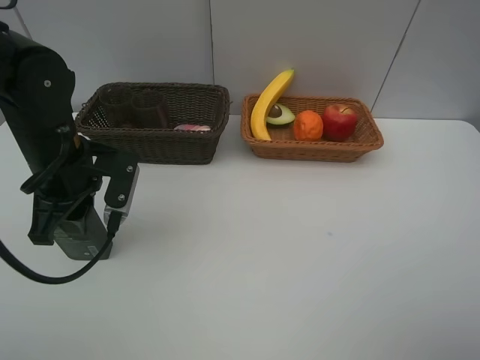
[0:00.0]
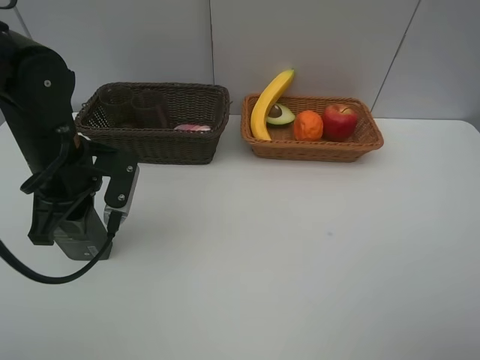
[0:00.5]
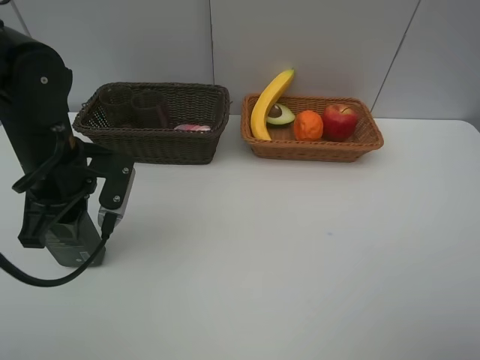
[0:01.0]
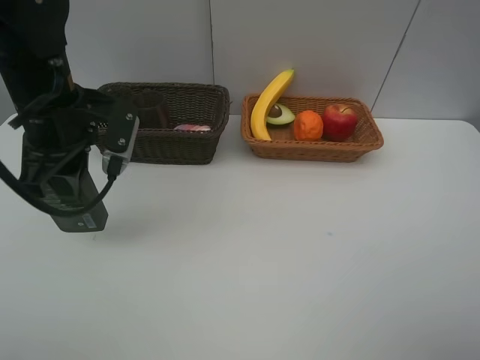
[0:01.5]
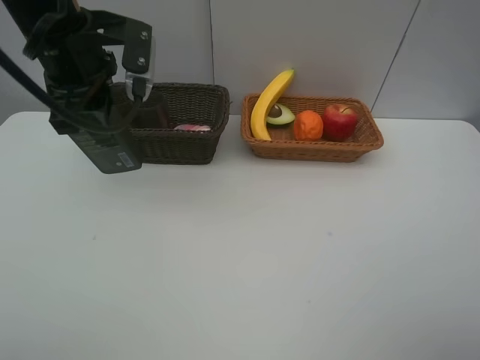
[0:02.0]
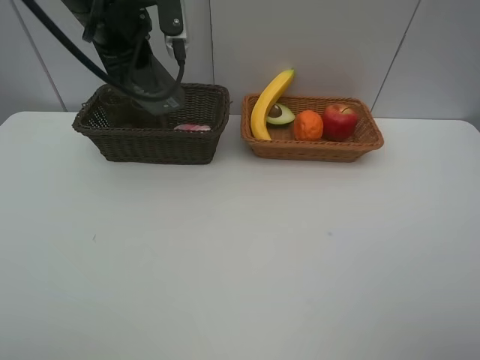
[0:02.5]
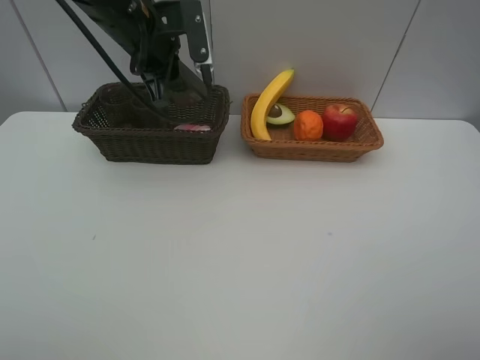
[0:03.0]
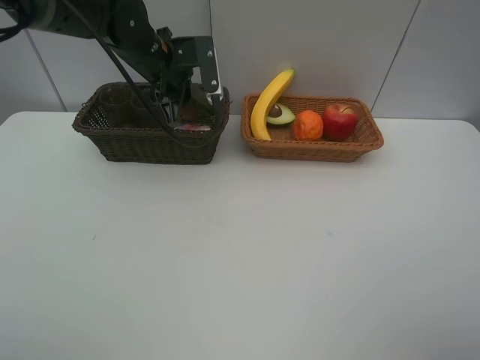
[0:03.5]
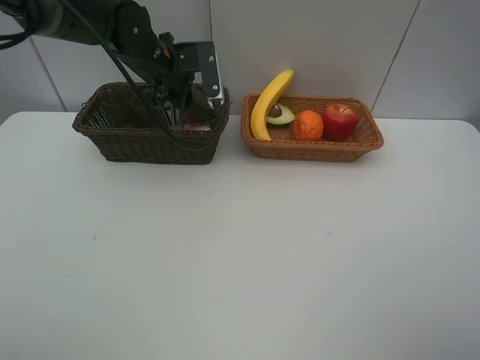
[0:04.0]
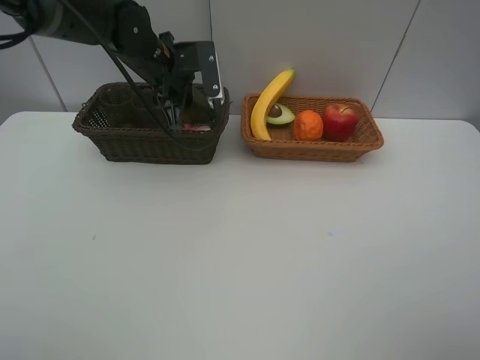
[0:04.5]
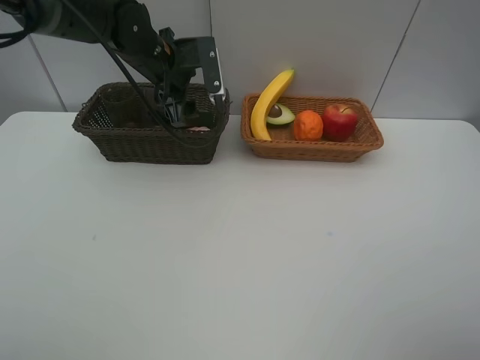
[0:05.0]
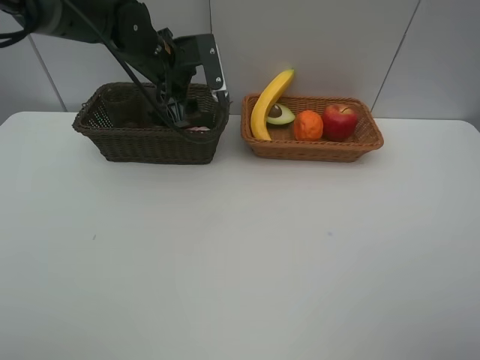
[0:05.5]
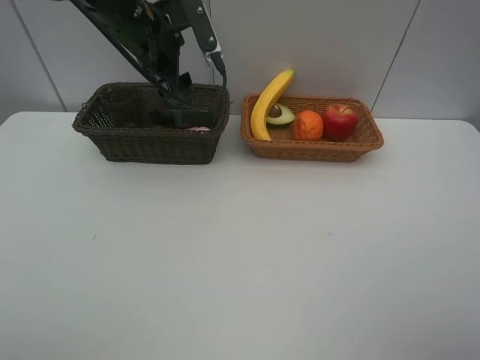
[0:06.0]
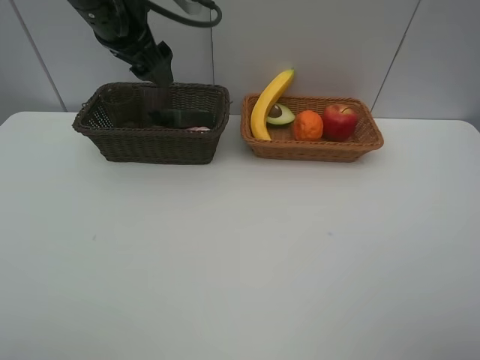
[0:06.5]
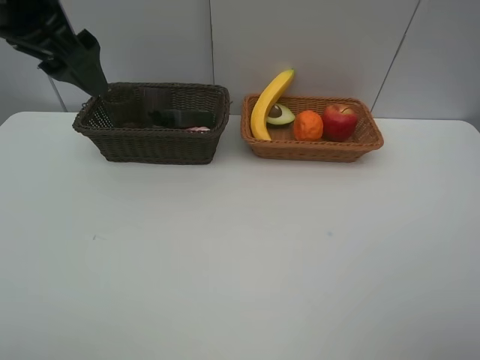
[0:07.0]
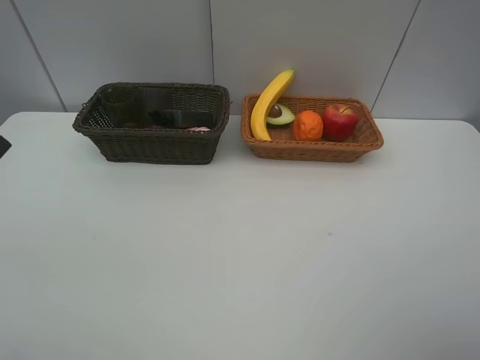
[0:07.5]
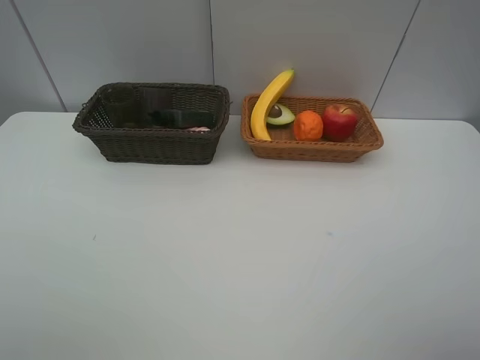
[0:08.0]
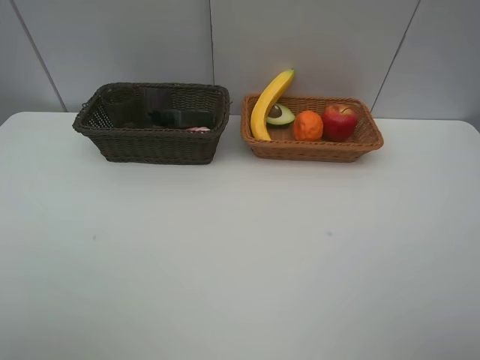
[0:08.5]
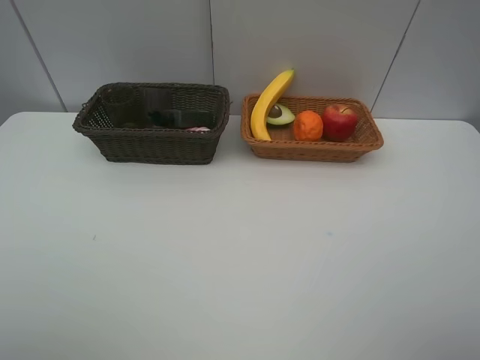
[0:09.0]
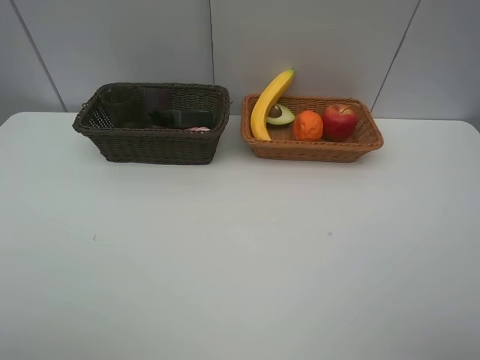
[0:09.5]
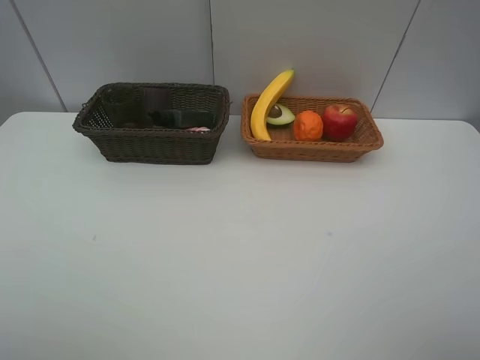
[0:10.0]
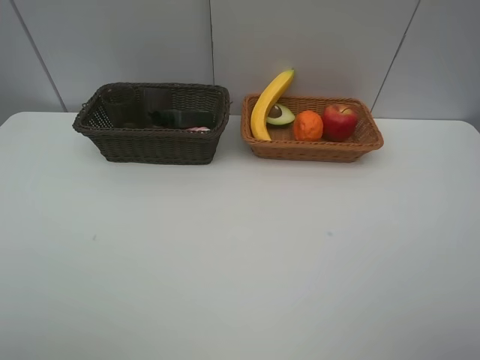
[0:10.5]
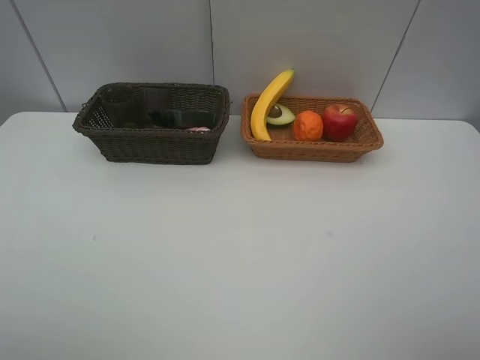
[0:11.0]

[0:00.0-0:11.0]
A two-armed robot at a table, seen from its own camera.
Task of the whole recording: Place multiple objects separately in different baskets.
Step, 0:01.5 to 0:05.0: Place the hard facial cleanser in the dark basket with left gripper.
0:00.0 to 0:02.0: The left gripper goes some 15 cm upward and forward.
0:02.0 to 0:03.5: The left gripper goes roughly 15 cm forward and downward.
0:03.5 to 0:05.5: The left gripper opens its fingers.
0:05.5 to 0:07.5: The left gripper goes roughly 35 cm backward, upward and to the left.

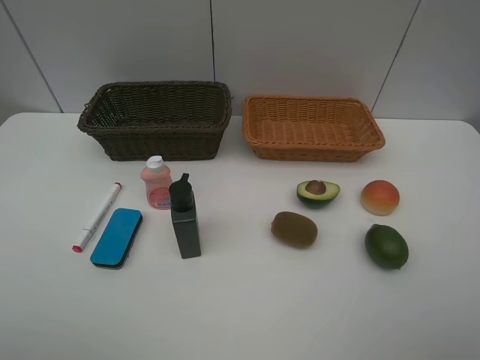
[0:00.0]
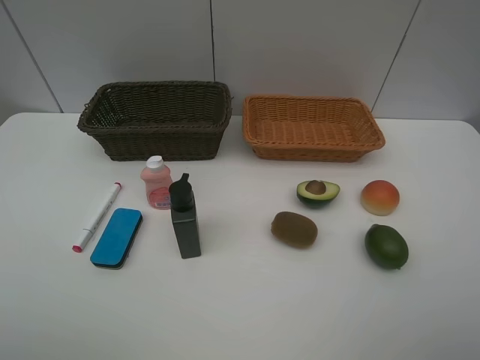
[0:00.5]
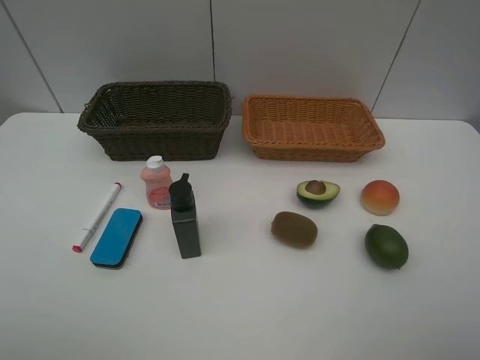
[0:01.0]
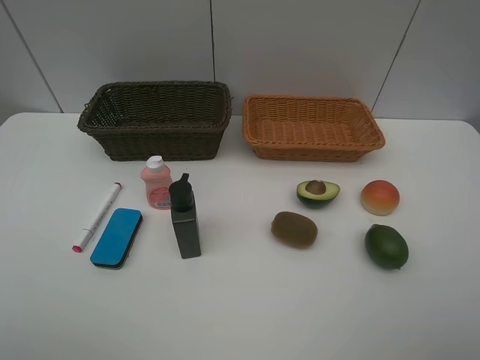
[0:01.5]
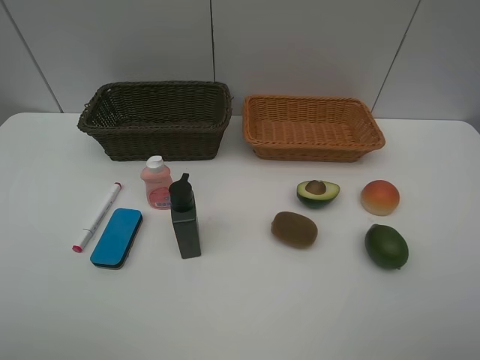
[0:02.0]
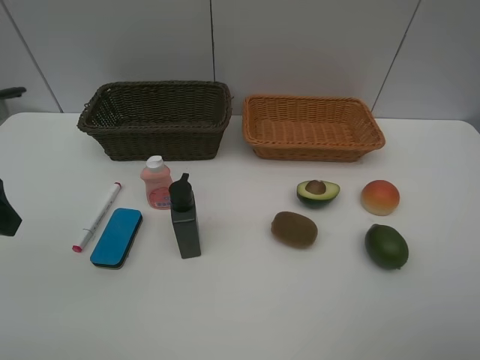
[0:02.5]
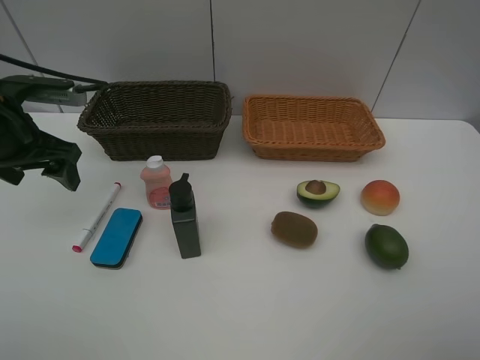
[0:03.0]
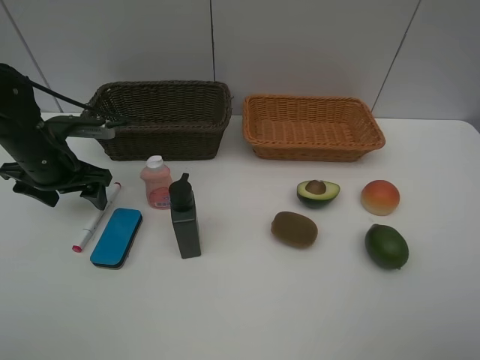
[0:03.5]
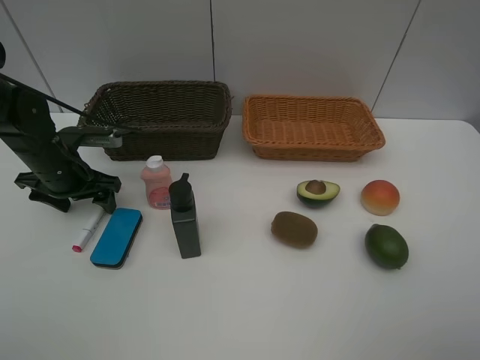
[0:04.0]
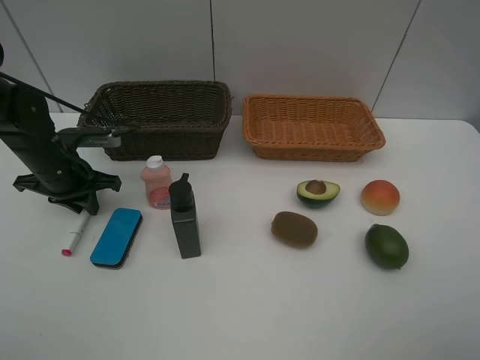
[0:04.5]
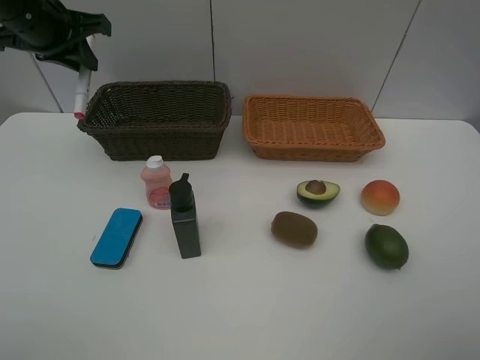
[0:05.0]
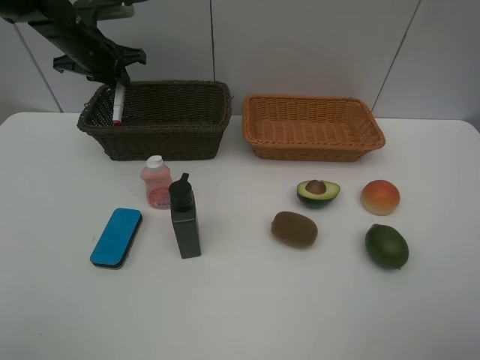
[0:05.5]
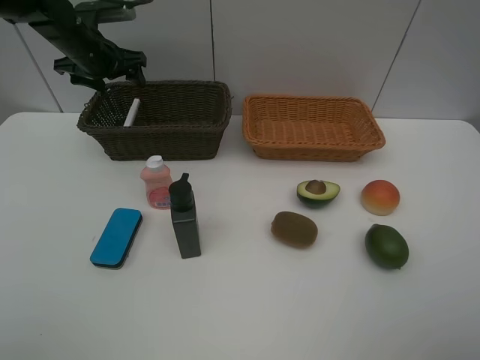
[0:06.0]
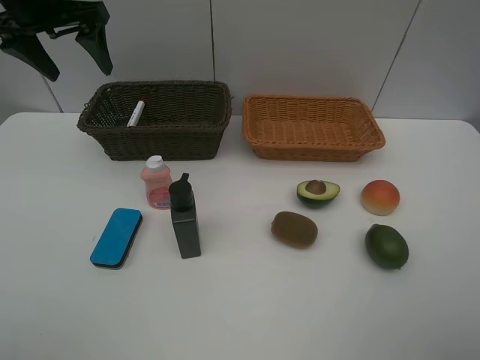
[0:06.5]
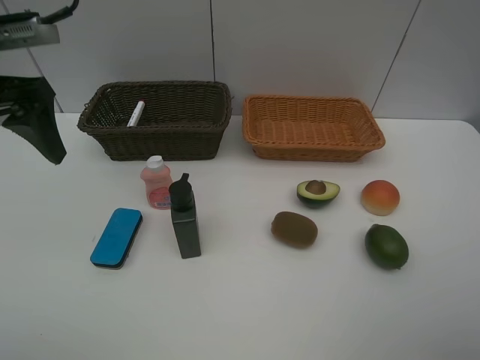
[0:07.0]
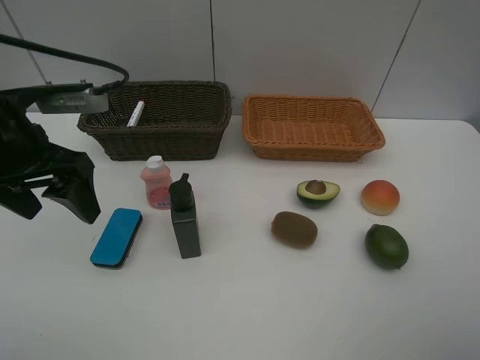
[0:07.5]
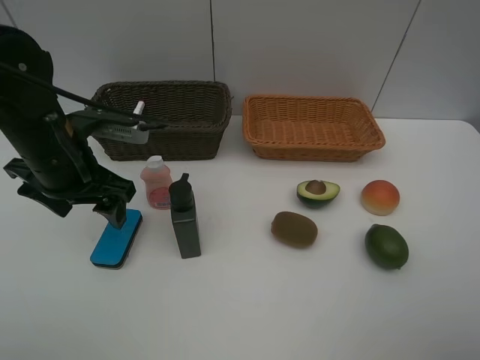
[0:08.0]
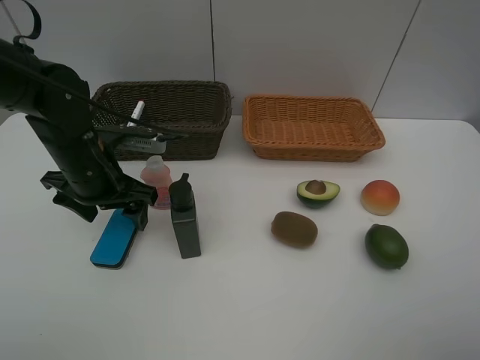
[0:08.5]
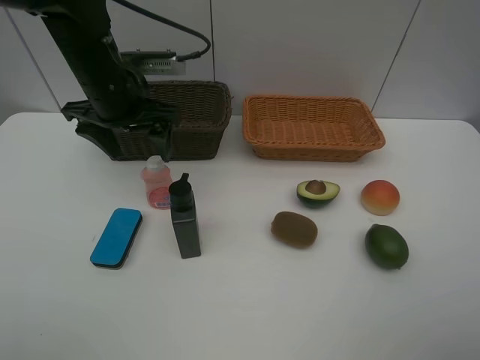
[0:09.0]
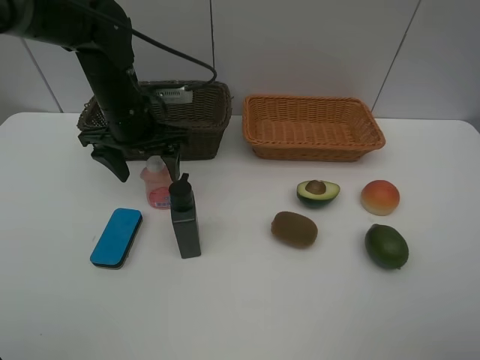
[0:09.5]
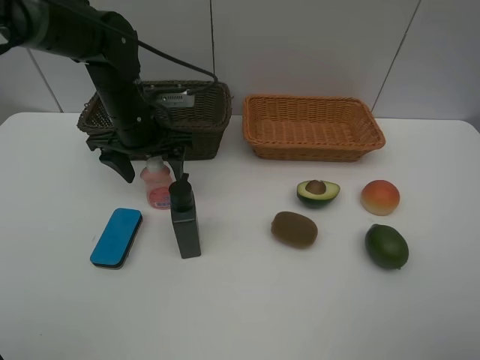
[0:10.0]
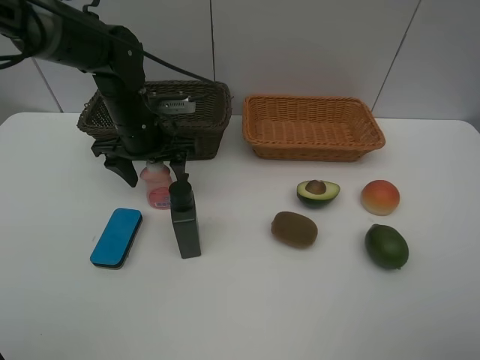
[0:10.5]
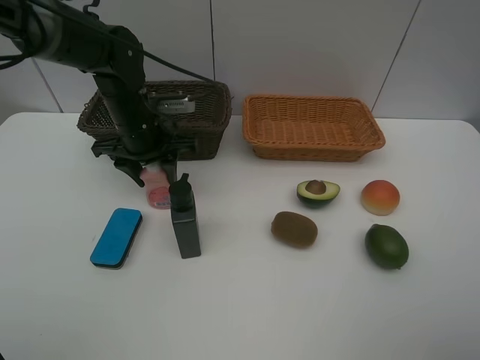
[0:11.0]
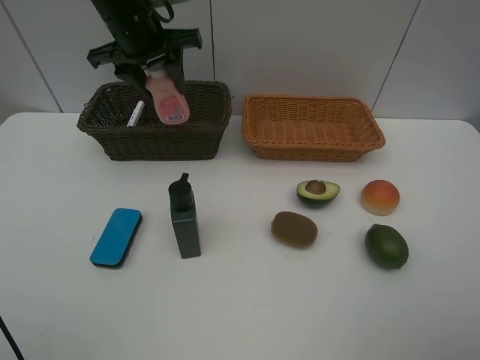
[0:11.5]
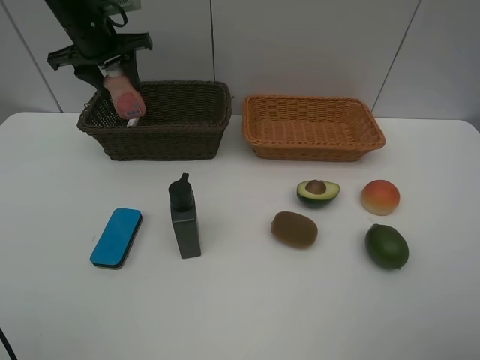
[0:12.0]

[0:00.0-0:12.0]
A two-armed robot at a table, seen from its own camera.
Task of the whole recording: Place multiple objects separately in different baskets.
Step, 0:00.0 to 0:04.5: Pick up the red marker with left gripper.
Step, 0:05.0 to 0:05.5: Place the red marker in the dark basket with left gripper.
Step, 0:06.0 to 0:11.0: Pick up the laundry detergent with left gripper.
0:02.0 to 0:04.0: The left gripper goes some 35 cm forward and downward.
0:04.0 to 0:06.0: The left gripper goes about 20 cm forward and upward, and closes, then opens again.
0:06.0 to 0:08.0: The left gripper travels backward by approximately 20 cm.
0:08.0 to 0:10.0: The left gripper shifts about 10 cm forward and to the right.
0:10.0 to 0:12.0: The left gripper heads forward, upward and to the left, covering roughly 15 cm, and closes its fingers.

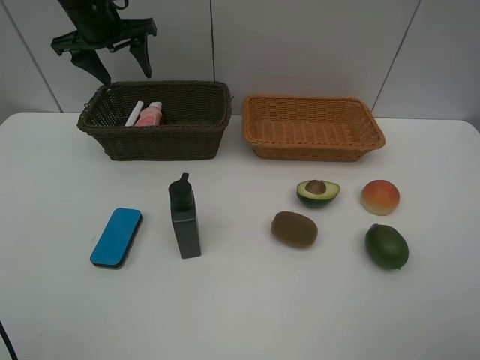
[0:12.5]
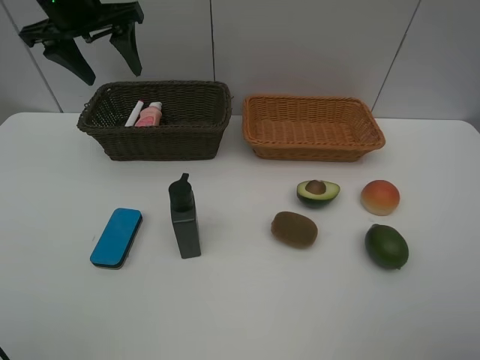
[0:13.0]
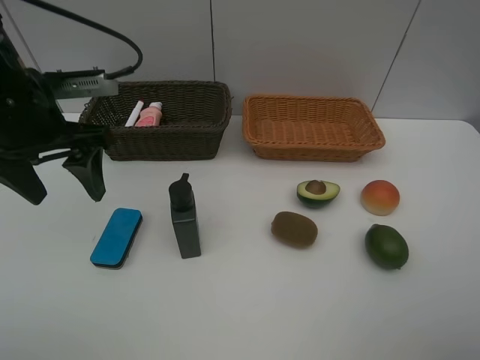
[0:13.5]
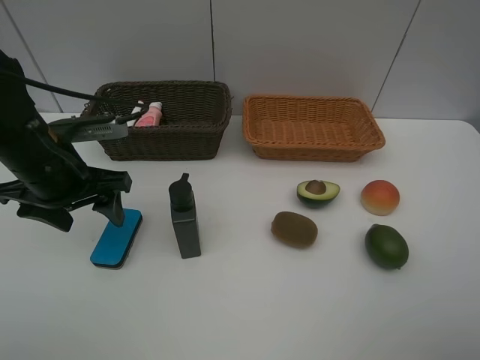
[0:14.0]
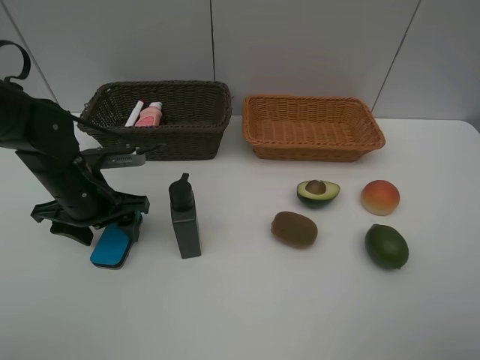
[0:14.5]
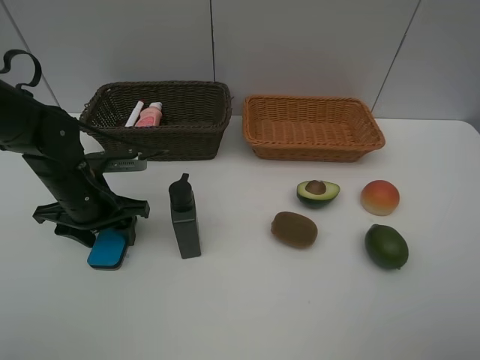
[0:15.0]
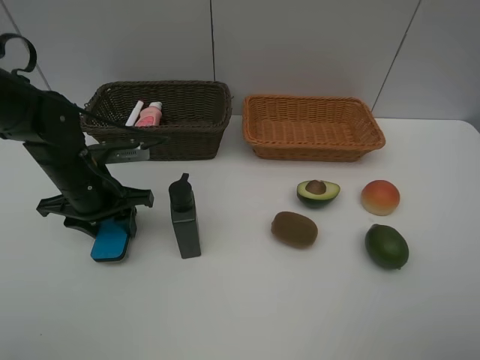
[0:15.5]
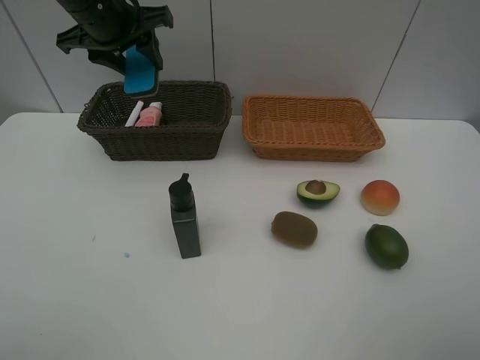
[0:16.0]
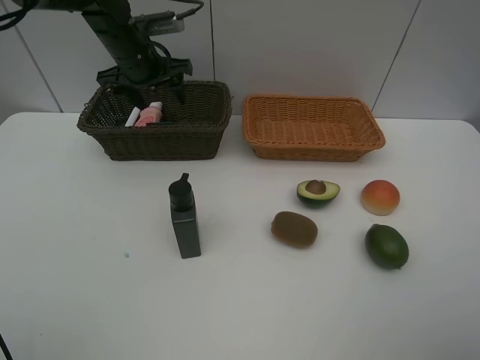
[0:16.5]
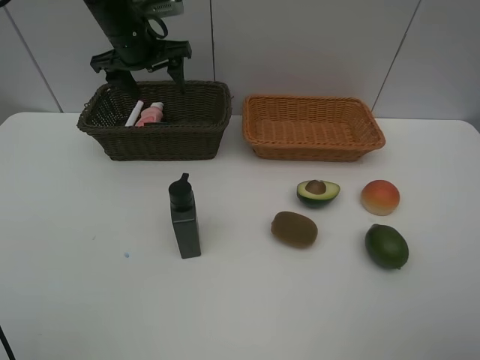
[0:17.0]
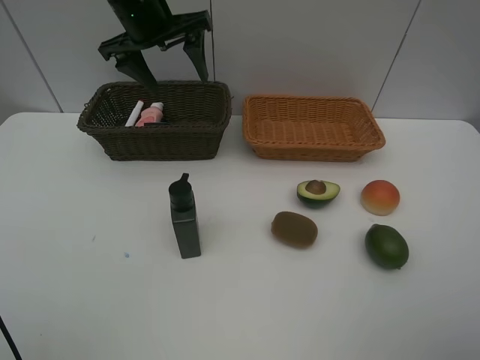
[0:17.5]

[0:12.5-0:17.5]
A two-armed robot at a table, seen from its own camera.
Task of the whole recording: Place multiple objects separately in different baskets.
Step, 0:12.5 to 0:15.5: Pick up blackboard eraser with left gripper.
Step, 0:16.0 to 0:16.5: Place the blackboard eraser in the dark basket with left gripper.
0:12.5 to 0:15.0: The left gripper heads backward and downward, covering some 25 cm.
0:15.0 to 0:17.5: The left gripper swings up and down, about 20 cm each way, with 2 reversals, and opens its fingers.
